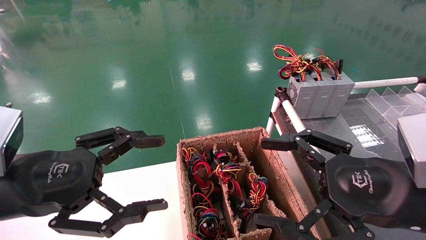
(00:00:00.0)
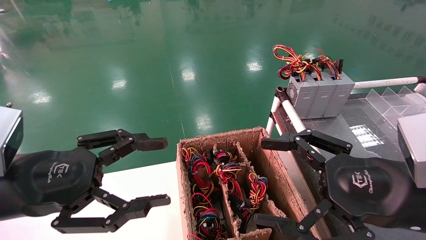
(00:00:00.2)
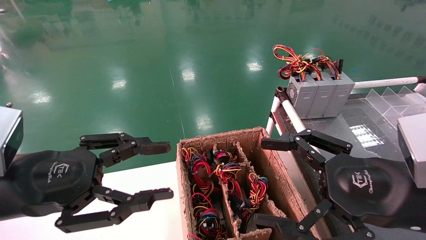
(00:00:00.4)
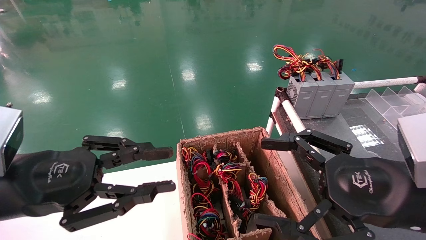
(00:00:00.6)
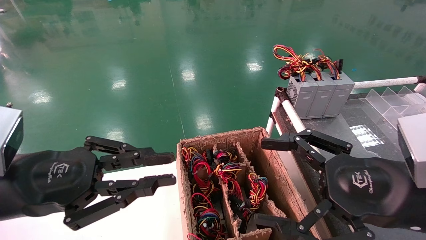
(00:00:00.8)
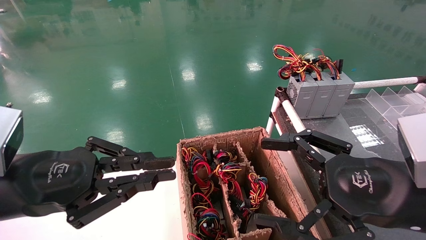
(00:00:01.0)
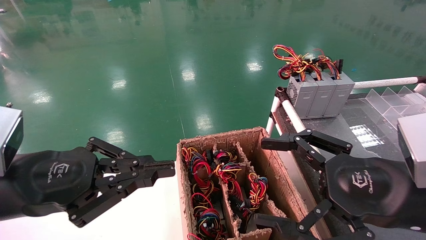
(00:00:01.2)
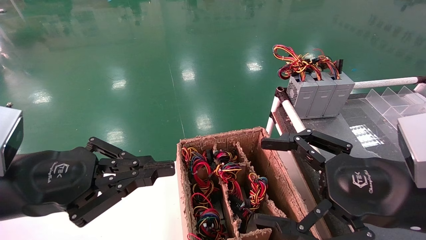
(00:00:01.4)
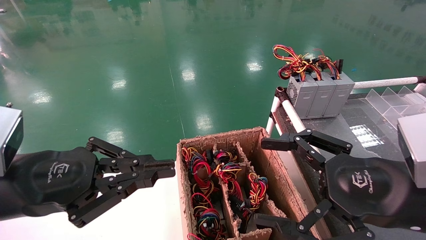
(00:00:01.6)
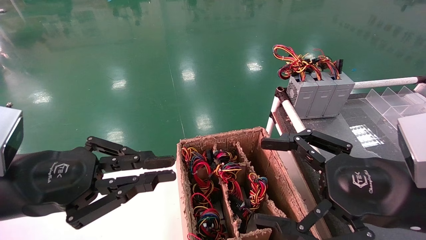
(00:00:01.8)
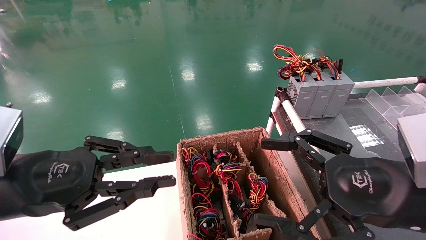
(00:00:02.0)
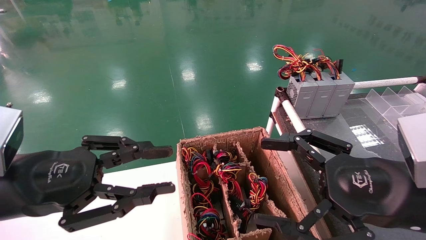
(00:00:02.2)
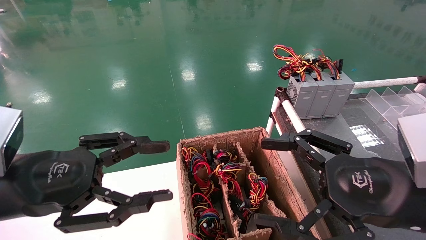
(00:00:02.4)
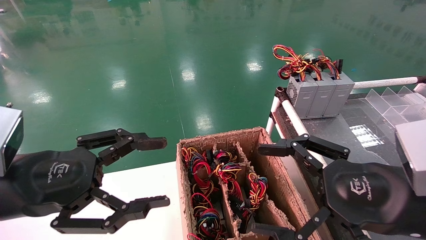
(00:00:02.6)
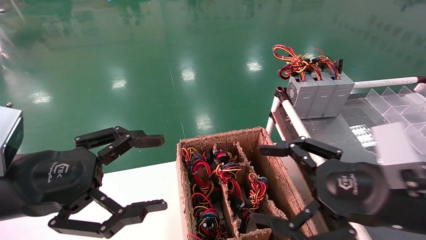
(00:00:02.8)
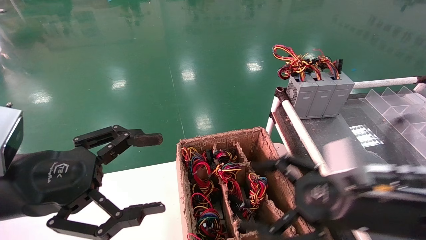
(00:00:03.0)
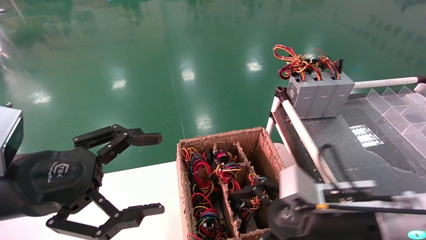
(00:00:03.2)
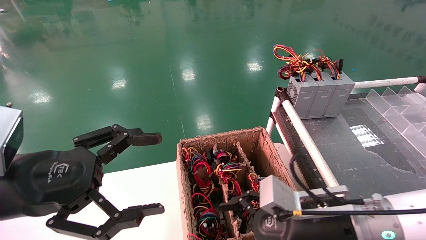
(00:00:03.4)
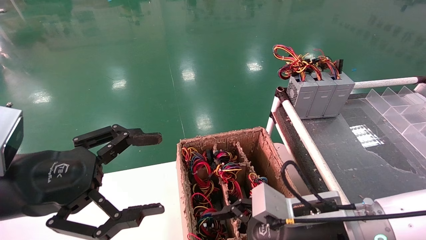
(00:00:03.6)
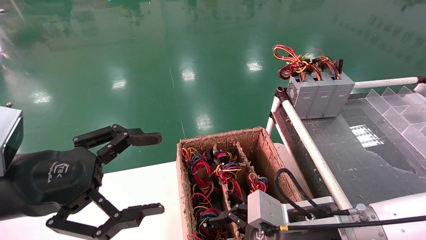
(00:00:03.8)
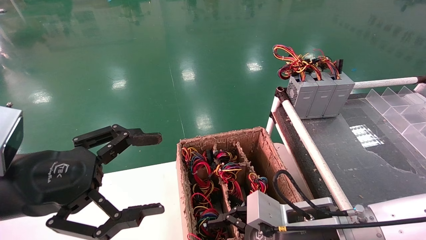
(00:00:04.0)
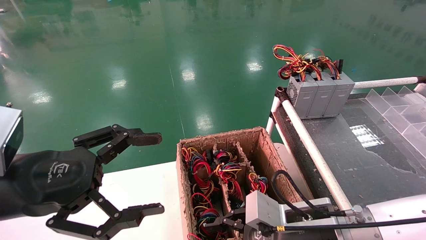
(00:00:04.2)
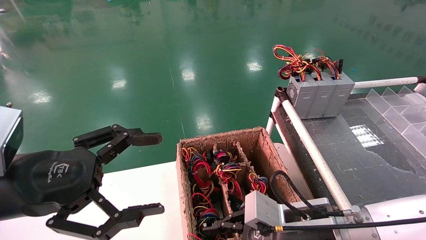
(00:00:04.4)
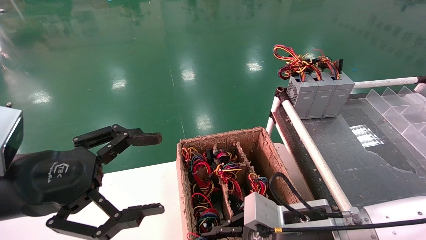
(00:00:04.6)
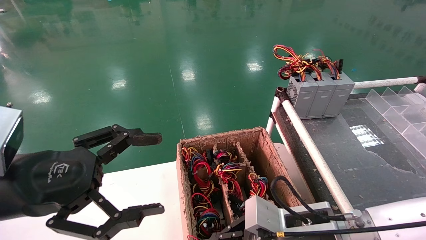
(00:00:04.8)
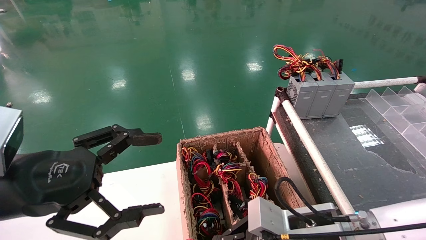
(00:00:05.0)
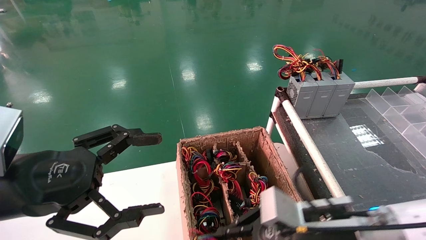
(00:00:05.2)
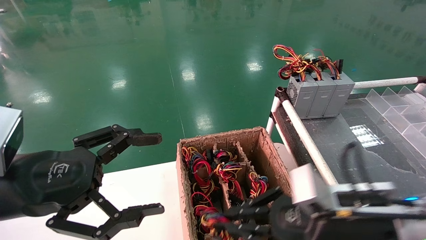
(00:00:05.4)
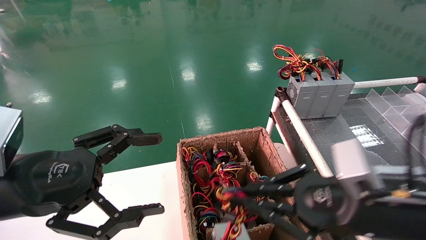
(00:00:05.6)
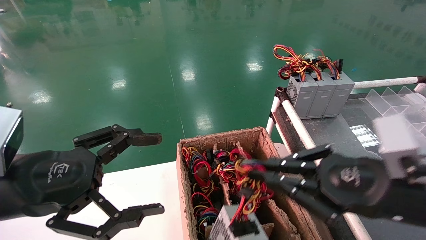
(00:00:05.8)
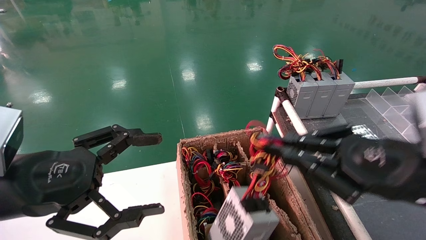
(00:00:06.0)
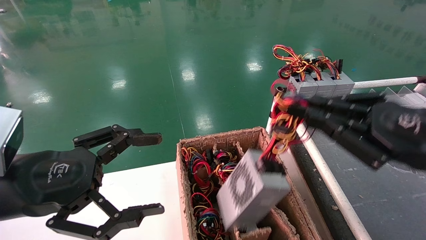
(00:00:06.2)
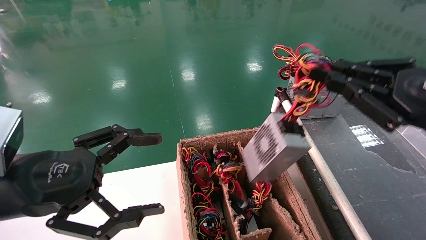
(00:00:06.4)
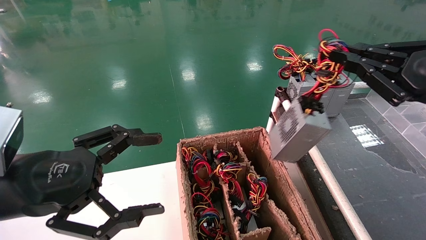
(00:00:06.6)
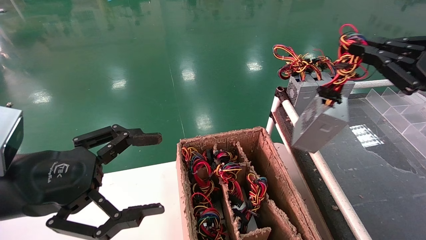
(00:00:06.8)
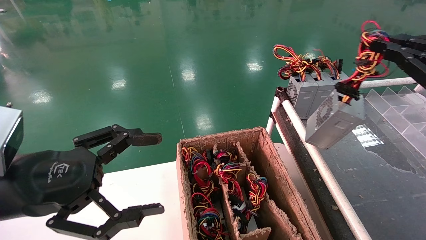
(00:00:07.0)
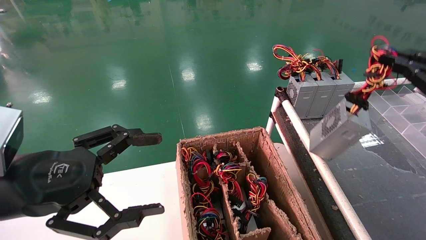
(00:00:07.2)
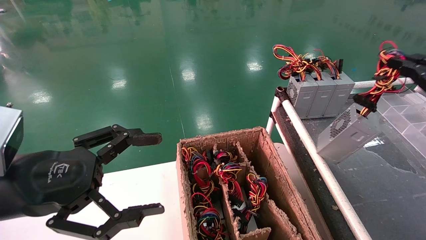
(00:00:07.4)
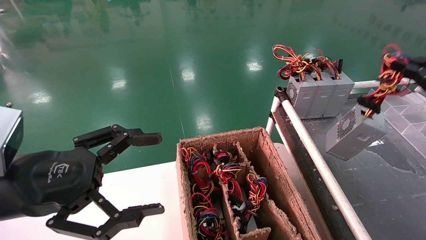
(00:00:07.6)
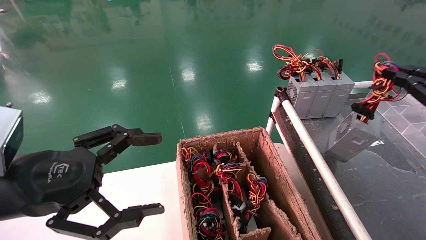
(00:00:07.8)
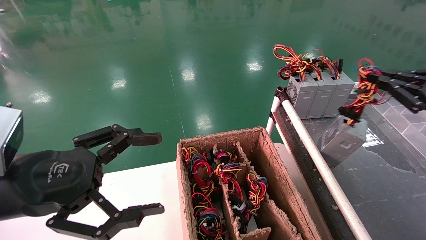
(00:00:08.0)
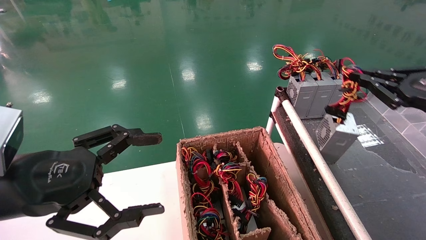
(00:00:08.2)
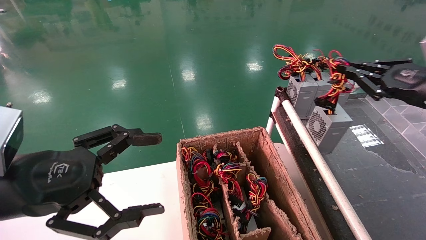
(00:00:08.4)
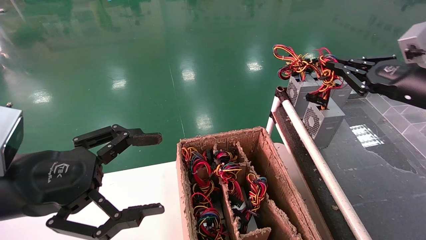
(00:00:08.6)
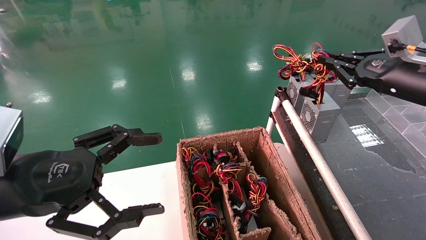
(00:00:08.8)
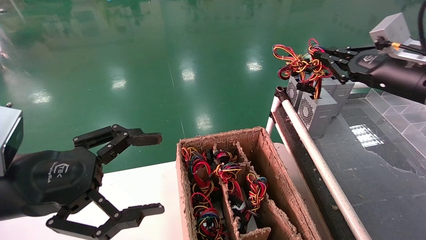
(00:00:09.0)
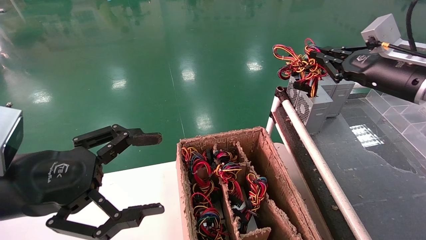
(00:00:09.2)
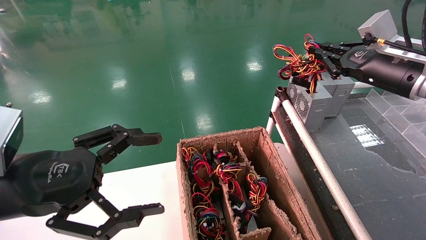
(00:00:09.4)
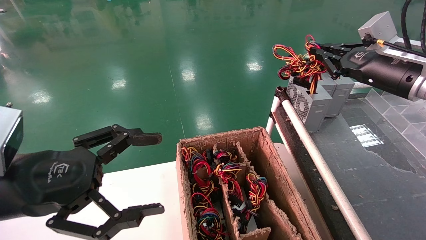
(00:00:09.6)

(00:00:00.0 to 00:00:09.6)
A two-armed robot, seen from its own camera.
Step, 00:00:01.4 - 00:00:05.0: Grab and lift the power supply from the large box.
00:00:00.0 - 00:00:01.6: The left gripper closes its fingers.
00:00:01.6 - 00:00:03.2: The left gripper opens. Meanwhile the right gripper travels downward, forward and to the left by some 10 cm.
00:00:03.2 - 00:00:04.8: The right gripper shifts by approximately 5 cm, and closes.
00:00:04.8 - 00:00:06.4: The right gripper moves upward and to the right, approximately 25 cm.
00:00:06.4 - 00:00:08.0: The right gripper heads to the right and forward, covering some 15 cm.
00:00:08.0 - 00:00:09.6: The right gripper travels forward and to the left by about 15 cm.

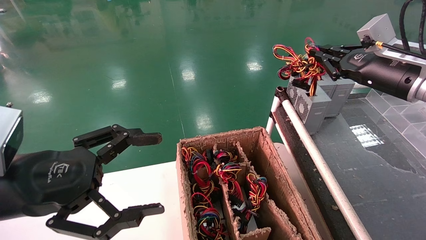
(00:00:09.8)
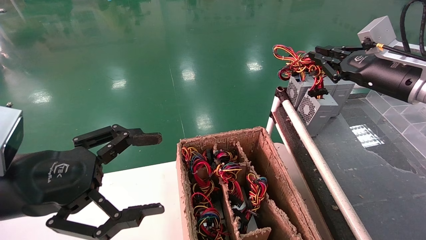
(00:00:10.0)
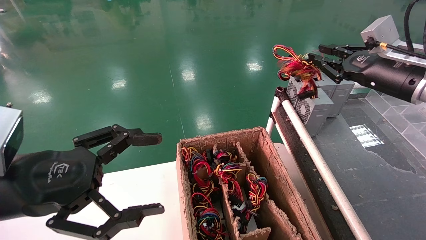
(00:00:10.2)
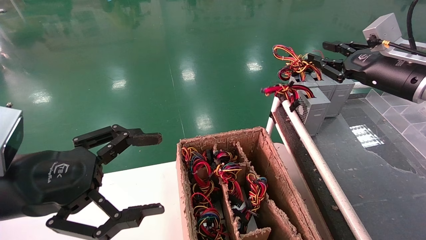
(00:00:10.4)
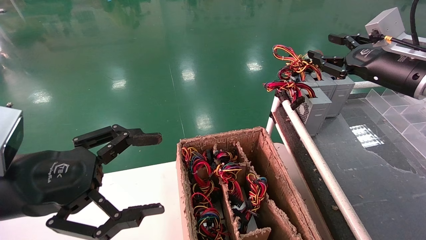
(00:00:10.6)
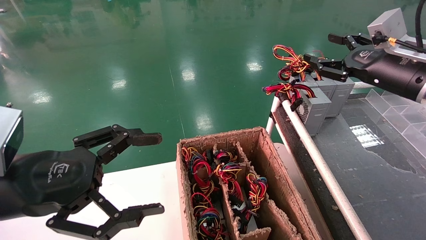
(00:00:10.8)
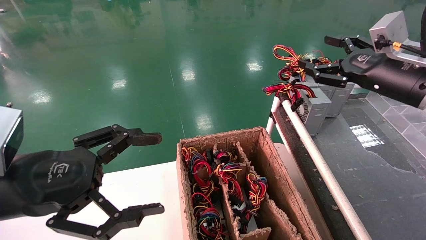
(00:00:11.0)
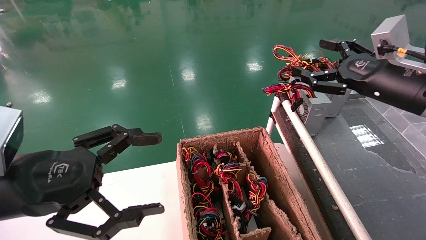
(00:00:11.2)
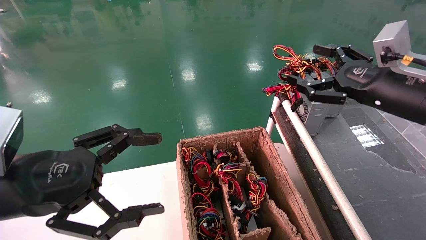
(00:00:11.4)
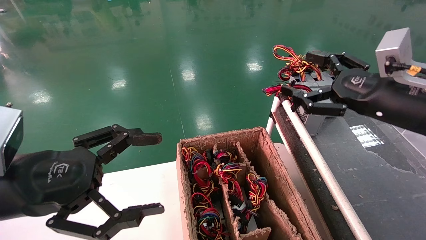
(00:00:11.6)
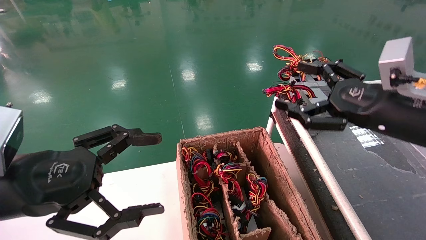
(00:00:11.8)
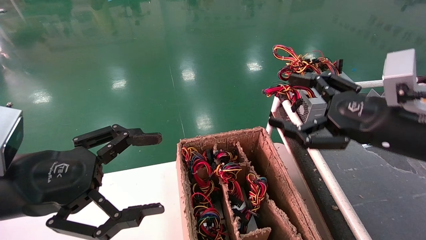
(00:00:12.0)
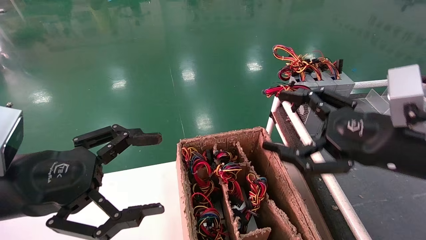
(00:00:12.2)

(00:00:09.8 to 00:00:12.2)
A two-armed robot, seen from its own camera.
00:00:09.8 - 00:00:11.0: The right gripper opens.
00:00:11.0 - 00:00:12.2: The right gripper heads backward, to the left and downward, covering roughly 15 cm.
